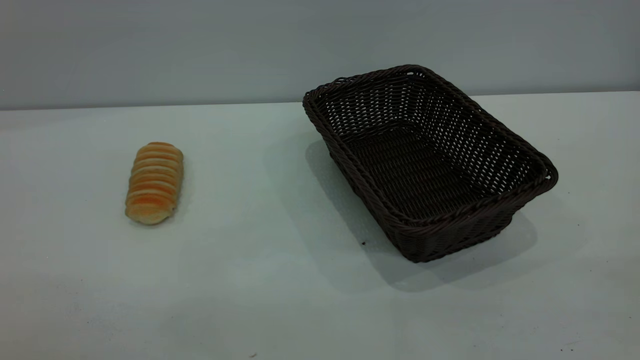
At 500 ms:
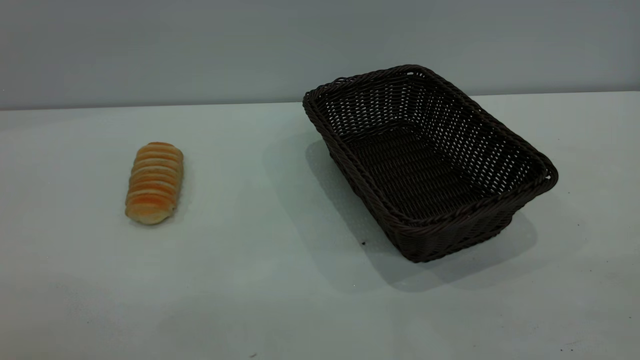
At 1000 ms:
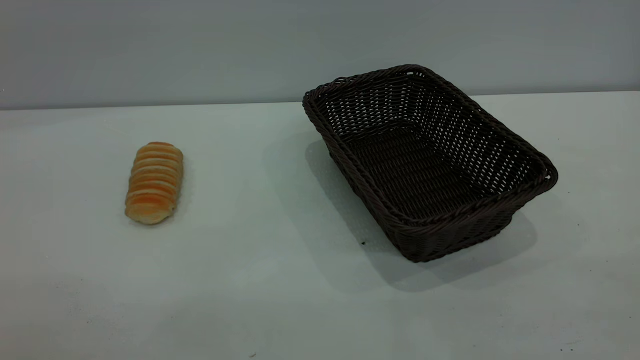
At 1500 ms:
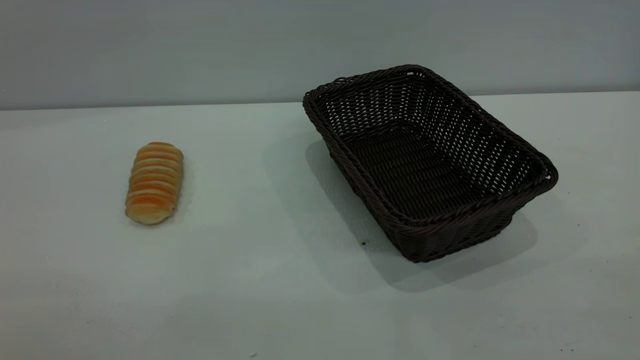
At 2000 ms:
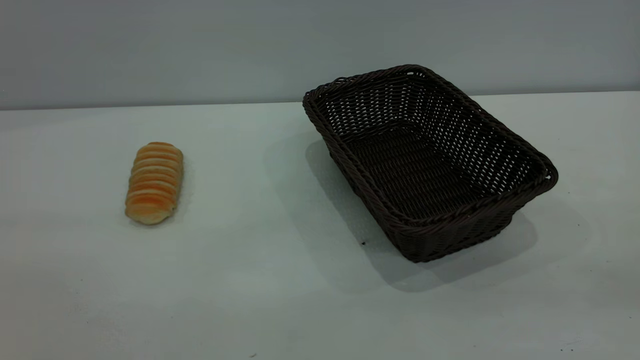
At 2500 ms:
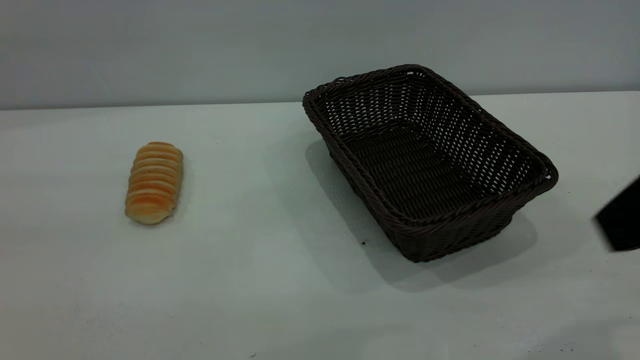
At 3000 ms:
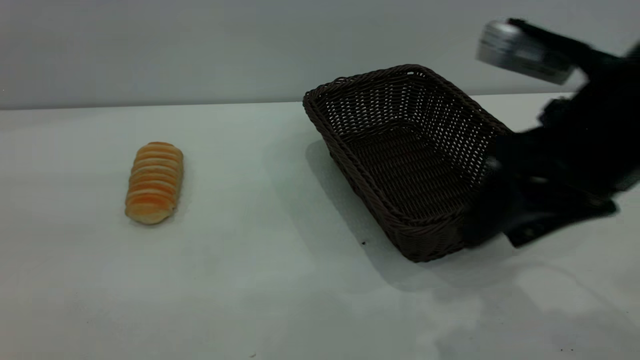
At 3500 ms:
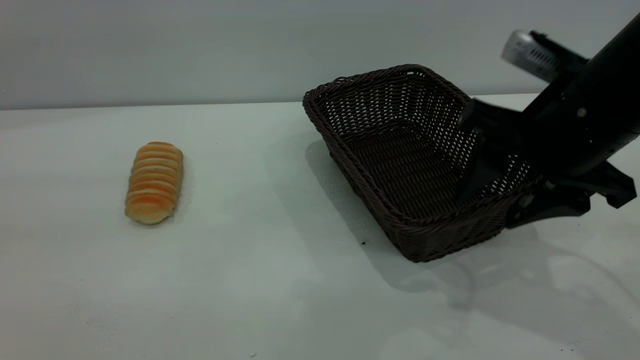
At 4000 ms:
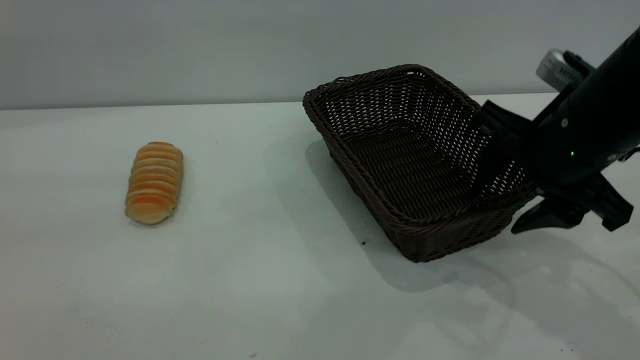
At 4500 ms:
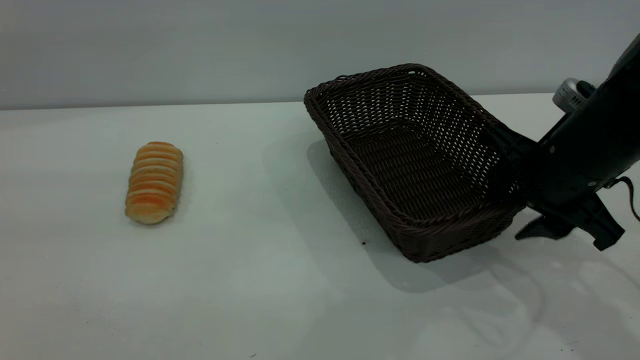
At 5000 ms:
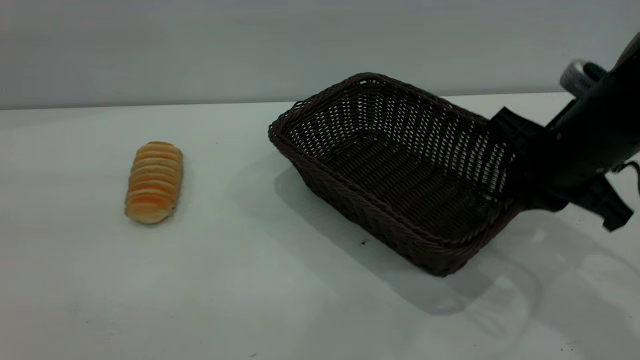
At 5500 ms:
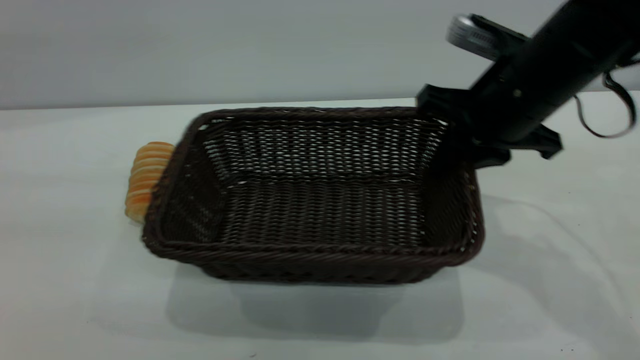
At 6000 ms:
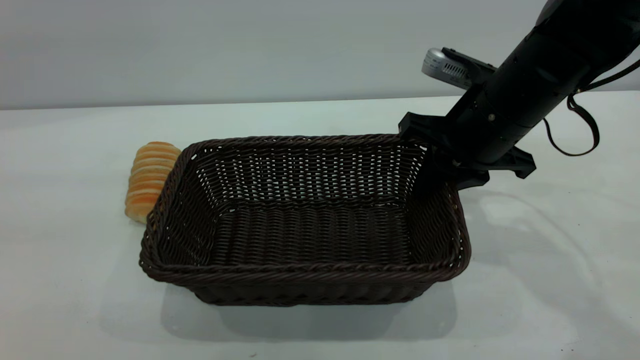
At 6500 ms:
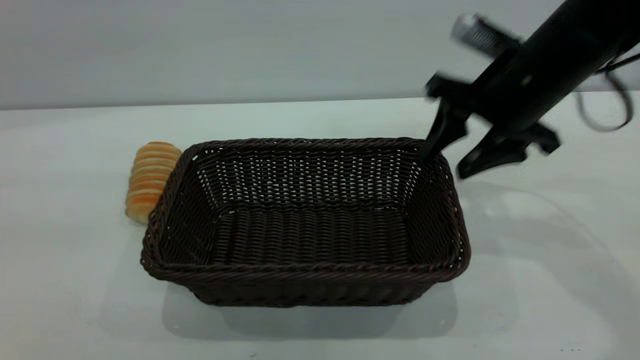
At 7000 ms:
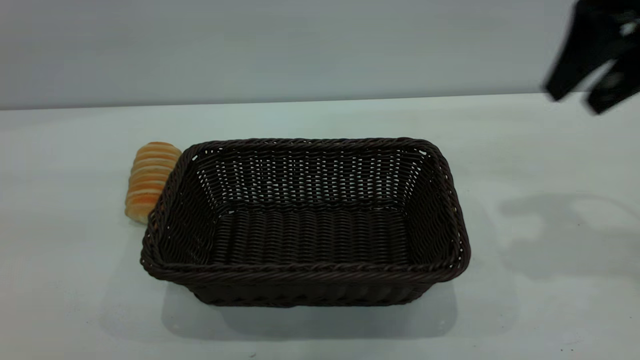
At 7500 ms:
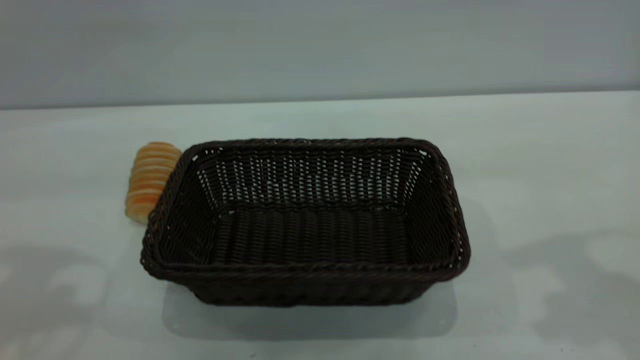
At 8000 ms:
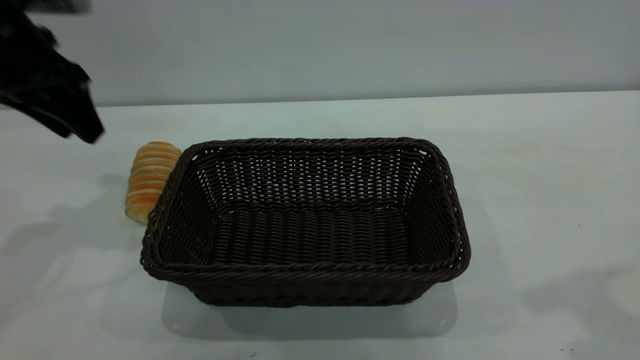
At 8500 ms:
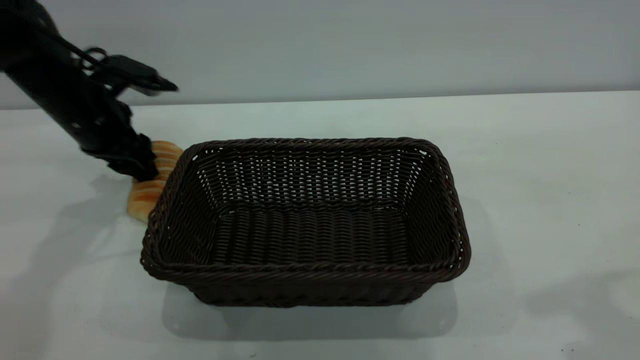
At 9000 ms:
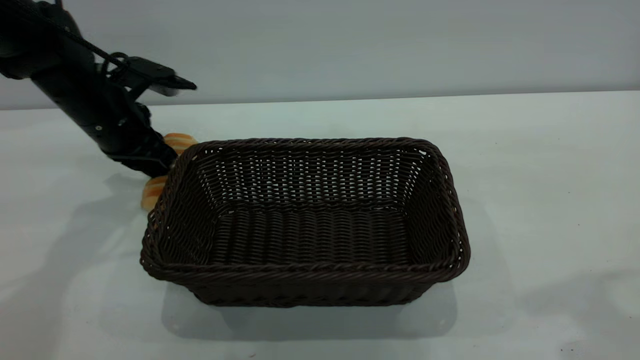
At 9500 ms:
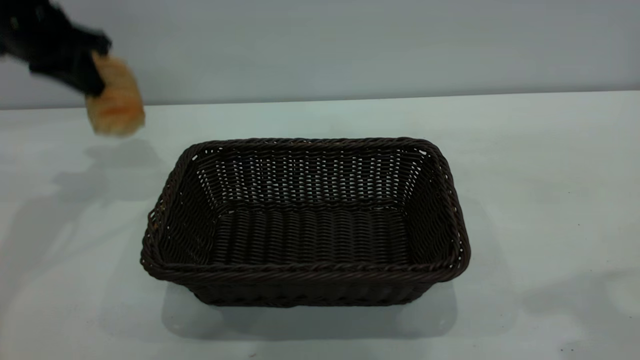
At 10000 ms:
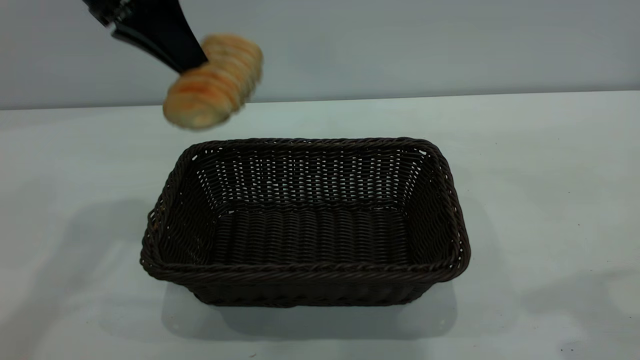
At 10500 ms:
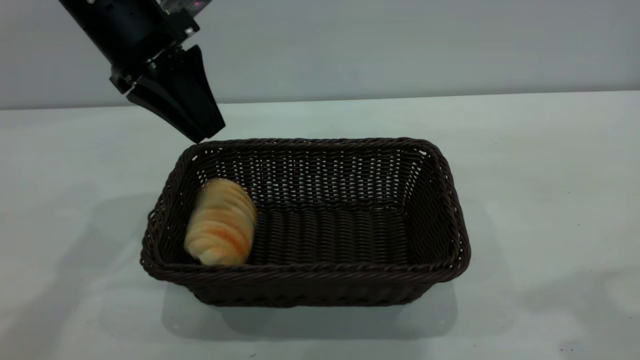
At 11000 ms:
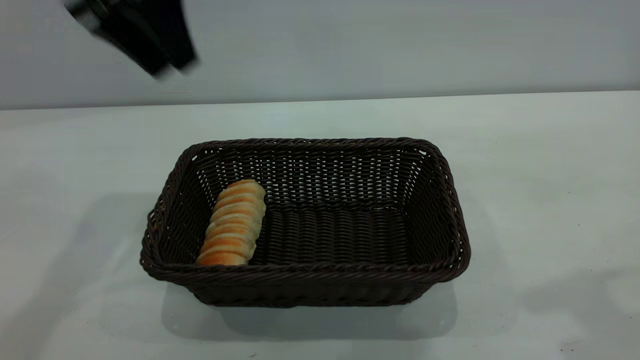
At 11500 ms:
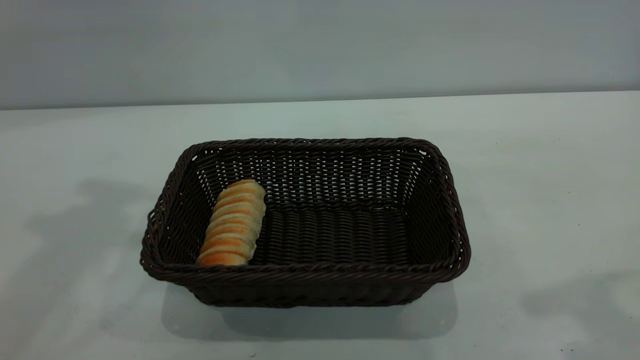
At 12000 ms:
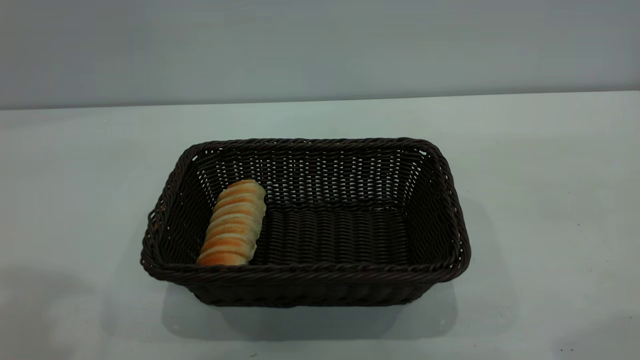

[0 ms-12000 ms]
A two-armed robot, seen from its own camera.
Task of the whole recording: One hand grasps the black basket and places it in the middle of the table, while the other hand picks up the long bread and puts it into the black basket.
Step, 0 ms to 6500 ms: Move the basket to the center of view.
Step, 9500 ms to 10500 ms: place the bread into the basket.
2000 ms to 4000 ms: The right gripper goes roughly 30 cm forward and downward.
4000 ms to 6000 ms: The right gripper shifts about 5 cm forward, and closes up.
6000 ms to 8000 ms: The left gripper moves forward and downward, approximately 35 cm. Meanwhile the right gripper shifts approximately 25 cm upward, backward and to the right, and opens.
8000 ms to 10000 ms: The left gripper heads to the right and upward, covering approximately 10 cm, and closes.
10000 ms to 12000 ms: The right gripper heads backward, covering about 5 cm. Meanwhile the left gripper heads backward, upward and to the left, covering about 25 cm, and opens its fingers.

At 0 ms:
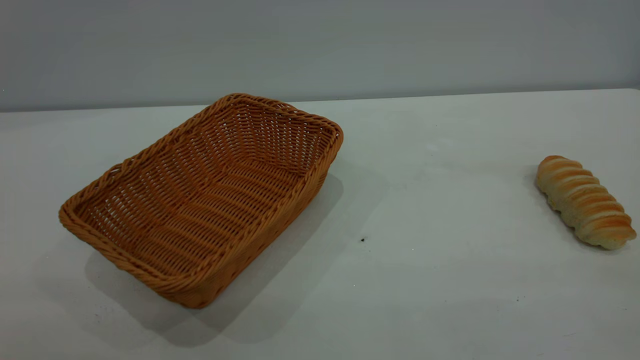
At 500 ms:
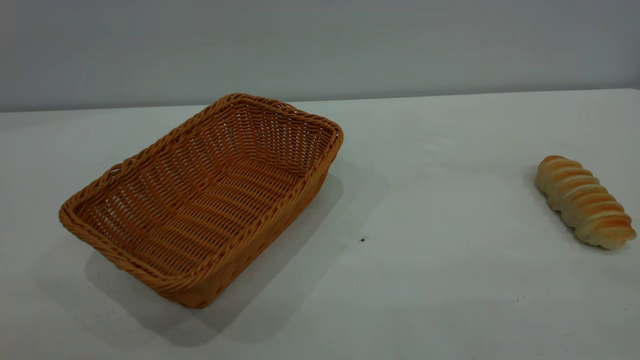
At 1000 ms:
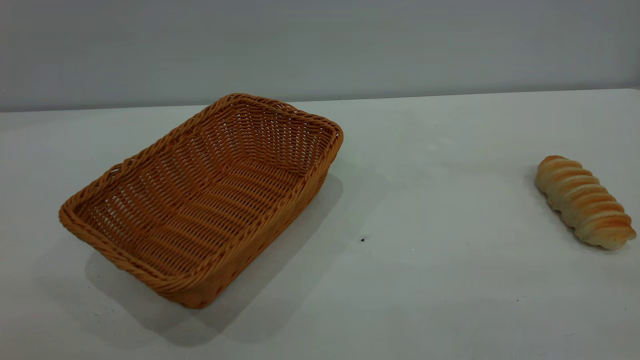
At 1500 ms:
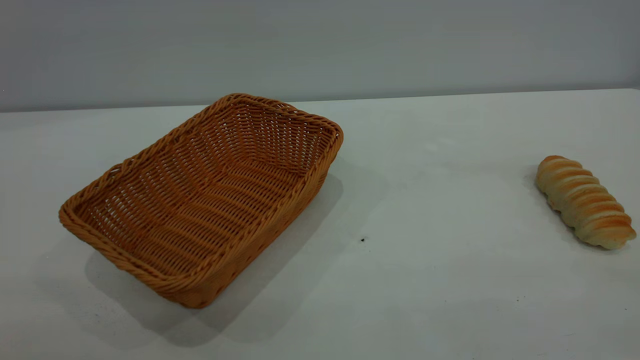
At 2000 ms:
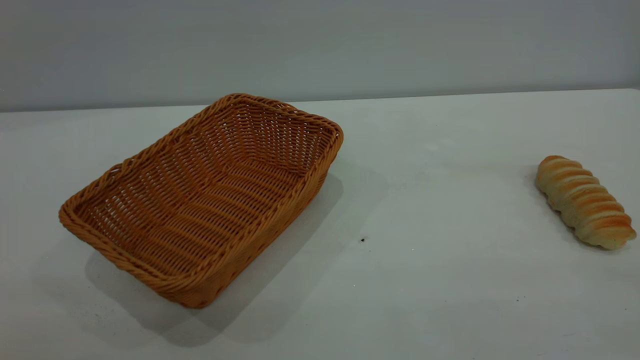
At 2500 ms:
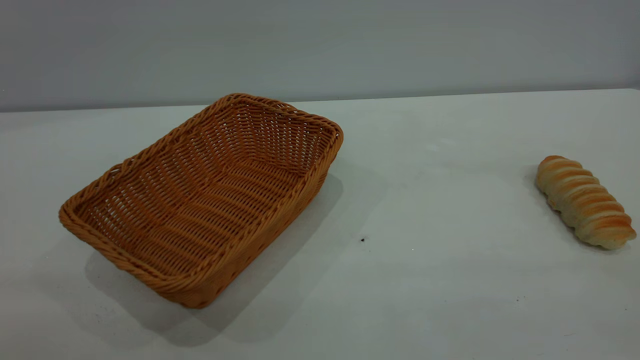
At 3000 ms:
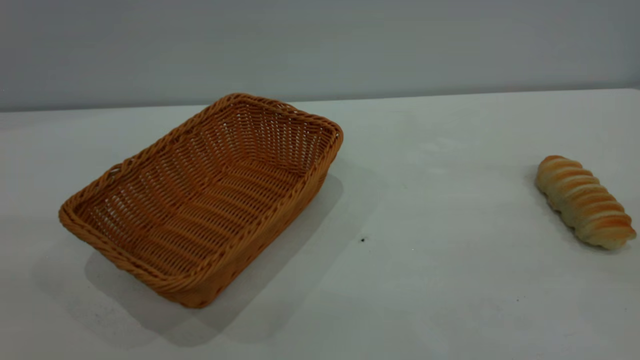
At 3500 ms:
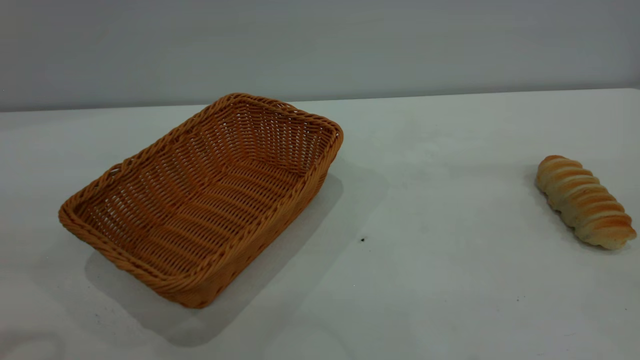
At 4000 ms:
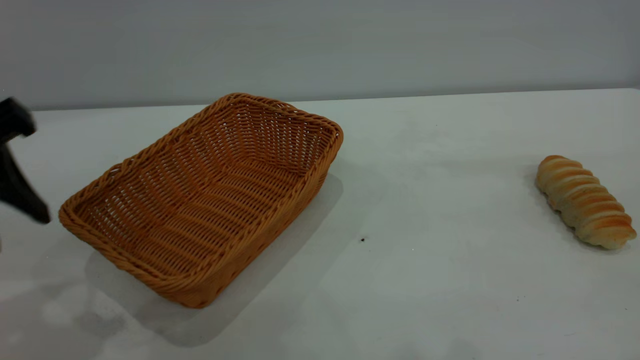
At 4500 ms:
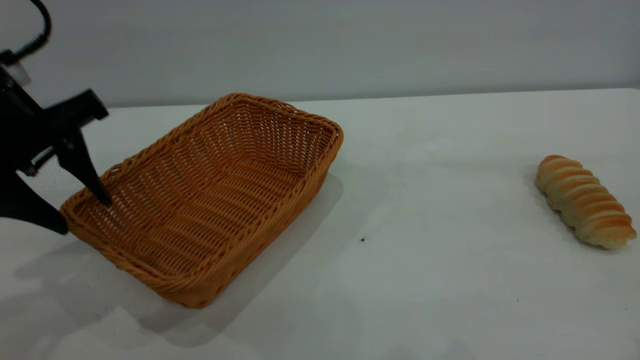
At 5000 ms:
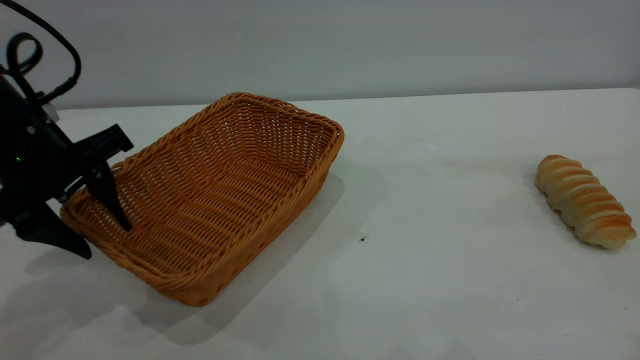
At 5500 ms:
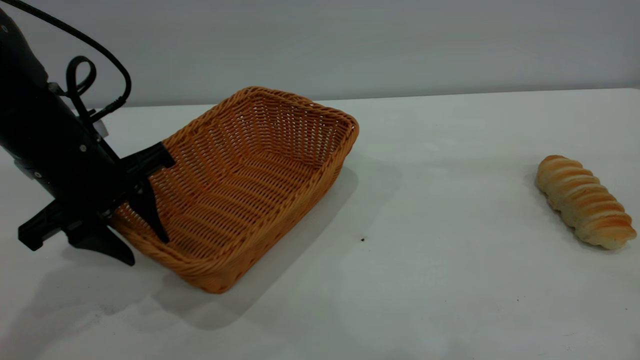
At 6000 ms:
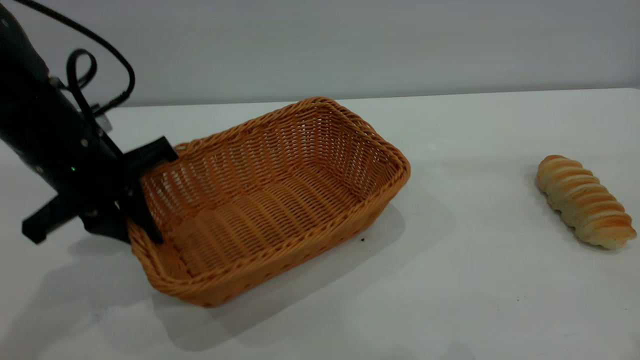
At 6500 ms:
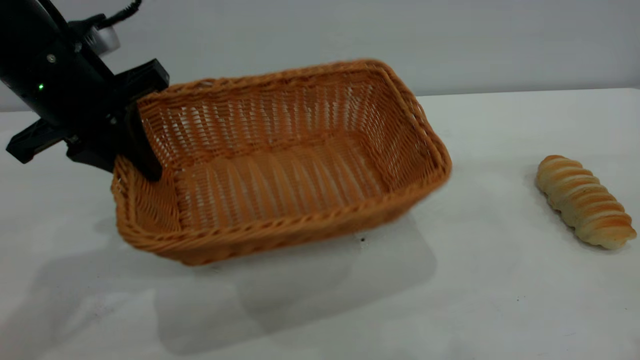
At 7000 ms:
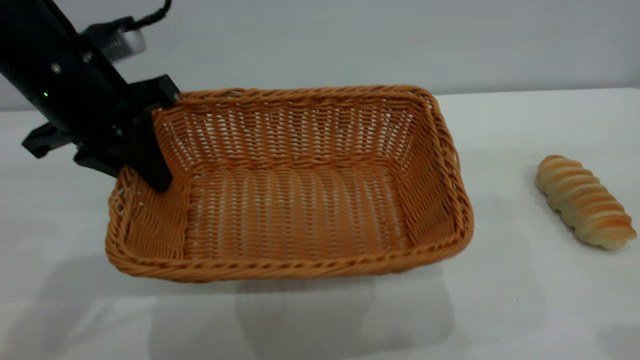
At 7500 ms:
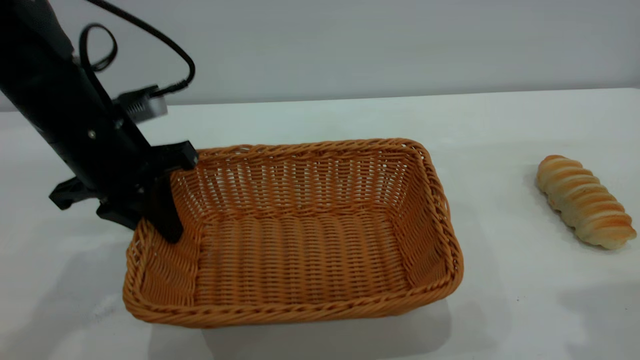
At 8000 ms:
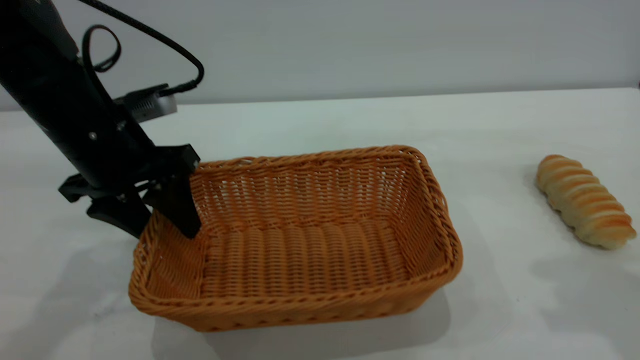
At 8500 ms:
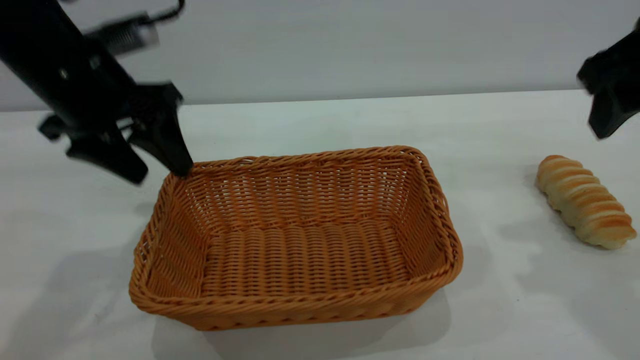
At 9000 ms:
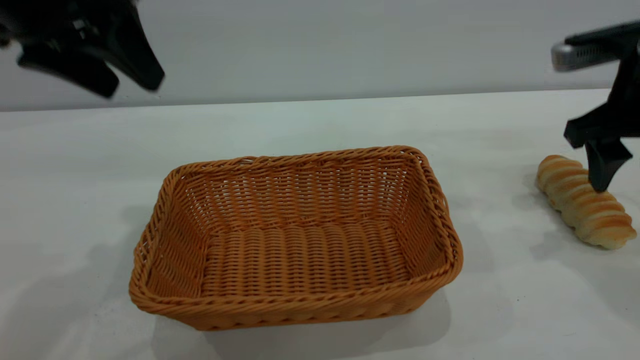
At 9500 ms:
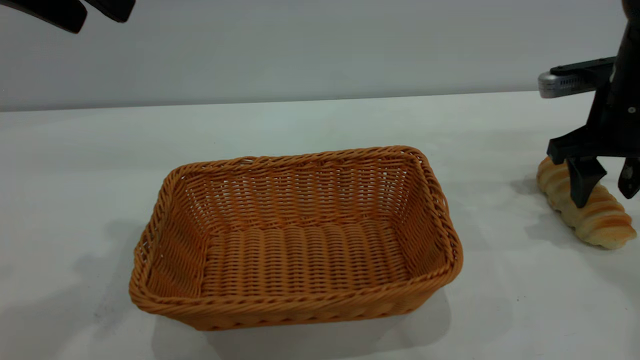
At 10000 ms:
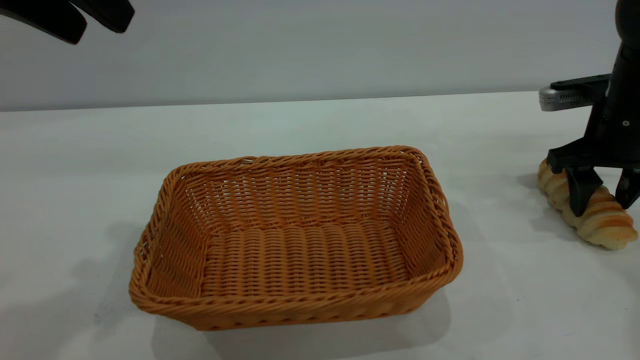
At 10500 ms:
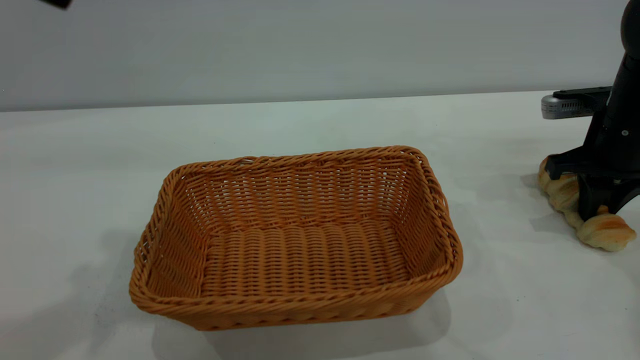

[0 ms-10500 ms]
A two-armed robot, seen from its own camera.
Task of the whole recording: One hand grasps the yellow basket and places it in the middle of the table, while the other hand picks up the long bread and puts it into the yellow basket.
Step, 0 ms to 8500 ms: Move the basket to the center of view.
0 ms to 2000 ms: Both grippers stay put.
2000 ms to 4000 ms: The left gripper goes some 25 cm forward.
4000 ms to 6500 ms: The left gripper moves forward, approximately 10 cm, and closes up.
6500 ms to 8500 ms: The left gripper opens its fingers; the right gripper is displaced forward and downward by roughly 20 cm.
8500 ms to 10500 ms: The left gripper goes roughly 15 cm upward and backward. Meanwhile the right gripper heads downward and forward, covering roughly 20 cm, and closes up.
